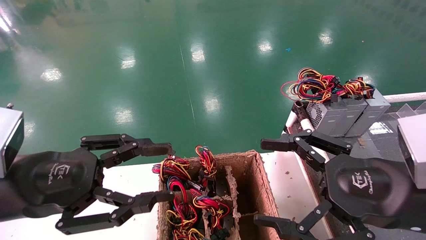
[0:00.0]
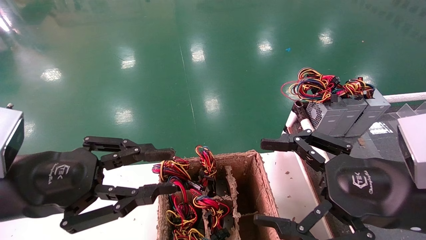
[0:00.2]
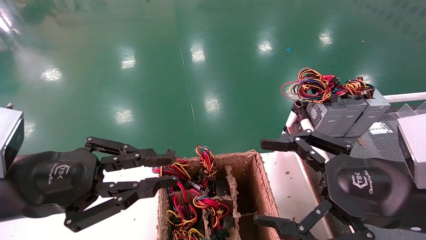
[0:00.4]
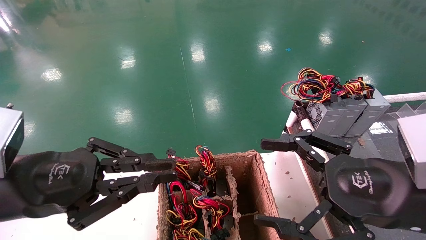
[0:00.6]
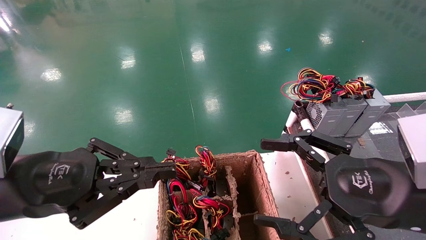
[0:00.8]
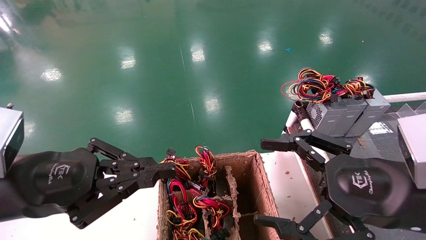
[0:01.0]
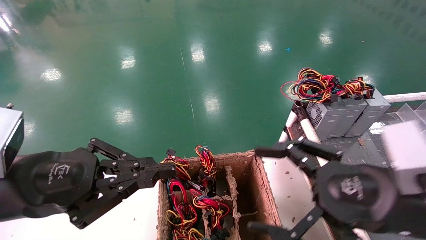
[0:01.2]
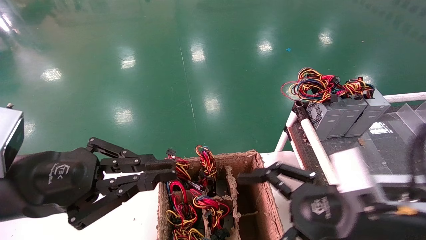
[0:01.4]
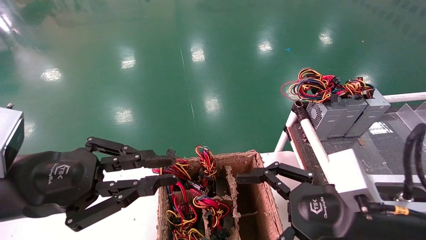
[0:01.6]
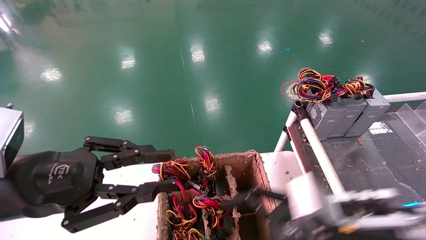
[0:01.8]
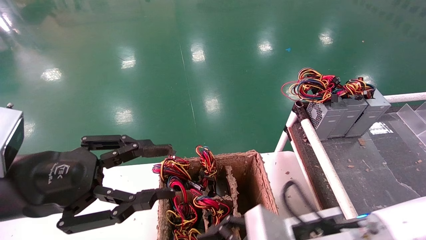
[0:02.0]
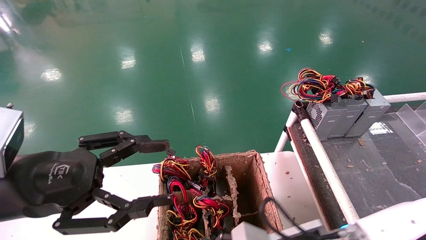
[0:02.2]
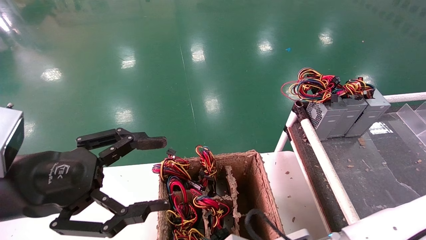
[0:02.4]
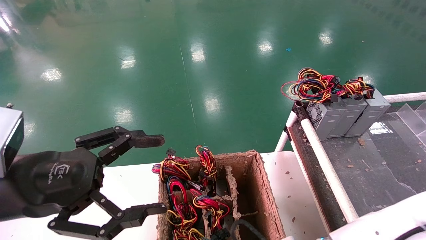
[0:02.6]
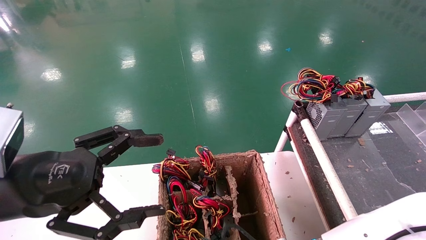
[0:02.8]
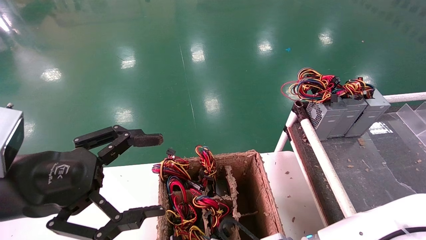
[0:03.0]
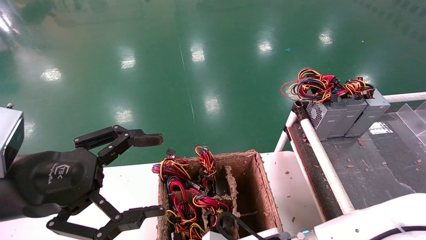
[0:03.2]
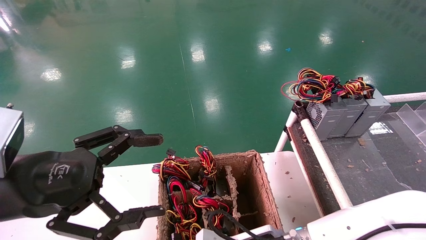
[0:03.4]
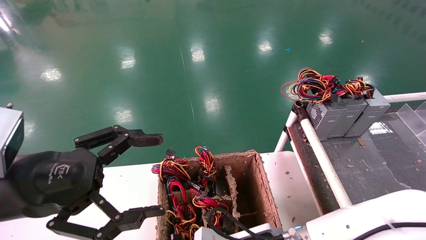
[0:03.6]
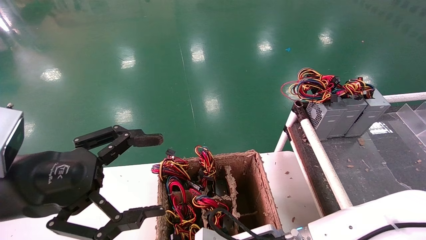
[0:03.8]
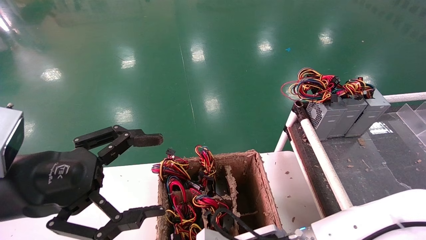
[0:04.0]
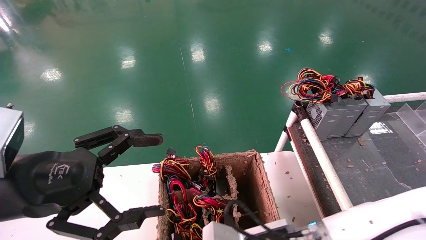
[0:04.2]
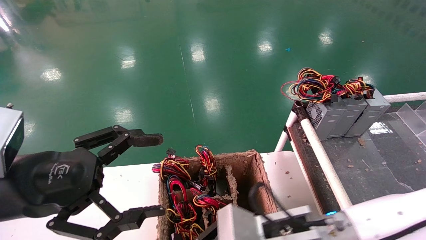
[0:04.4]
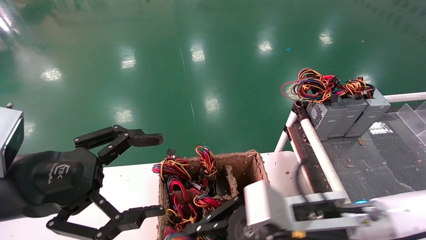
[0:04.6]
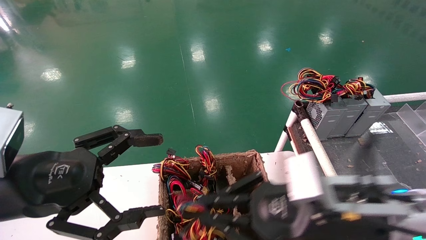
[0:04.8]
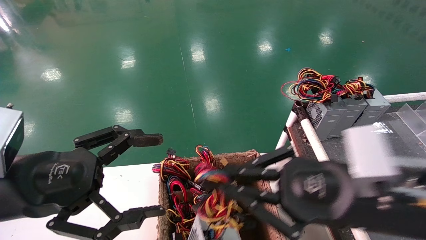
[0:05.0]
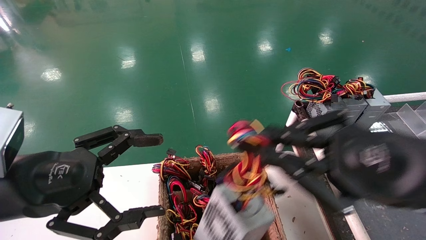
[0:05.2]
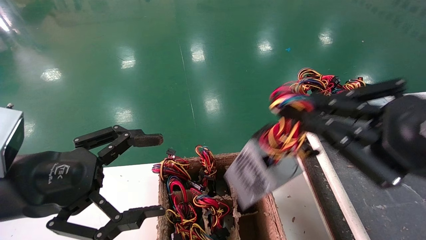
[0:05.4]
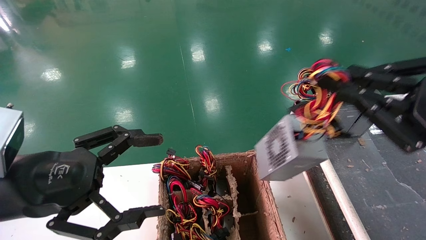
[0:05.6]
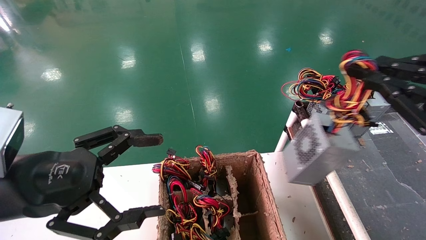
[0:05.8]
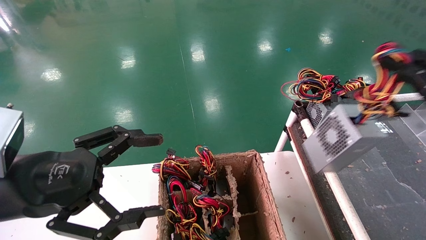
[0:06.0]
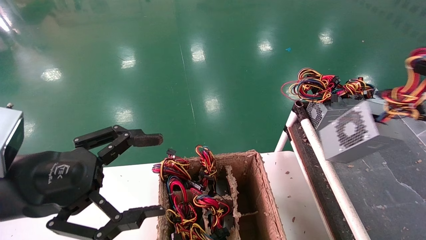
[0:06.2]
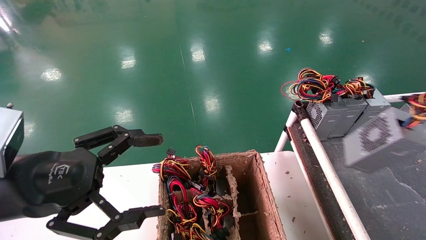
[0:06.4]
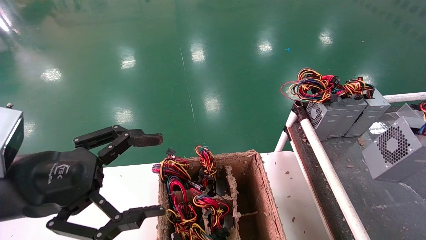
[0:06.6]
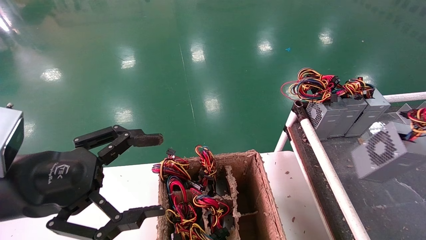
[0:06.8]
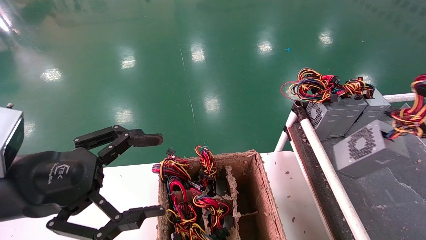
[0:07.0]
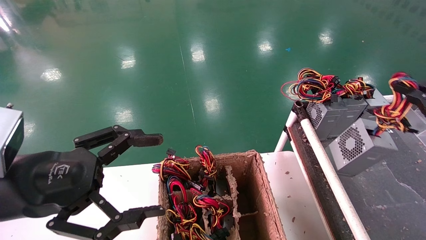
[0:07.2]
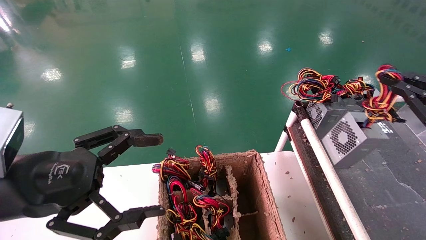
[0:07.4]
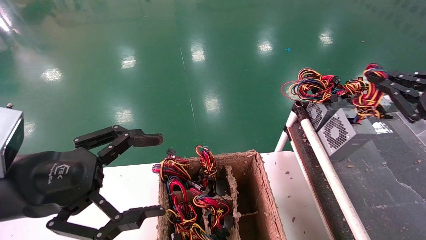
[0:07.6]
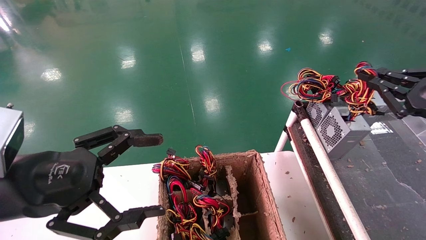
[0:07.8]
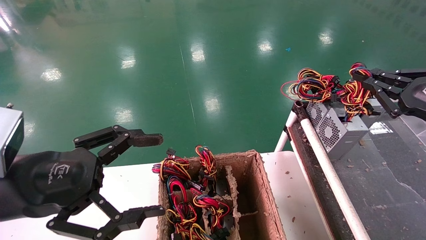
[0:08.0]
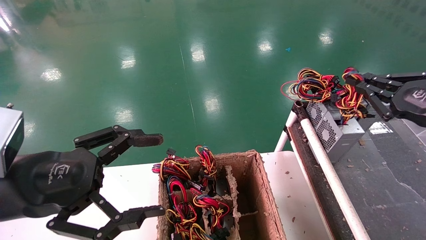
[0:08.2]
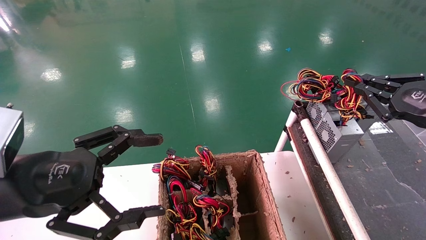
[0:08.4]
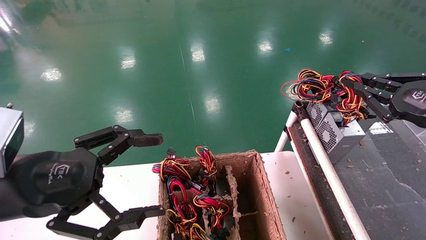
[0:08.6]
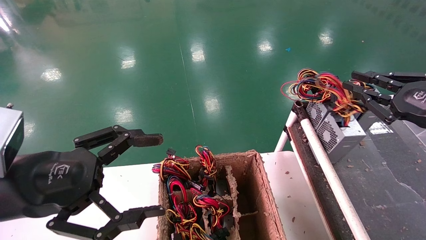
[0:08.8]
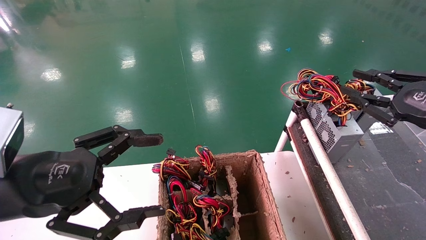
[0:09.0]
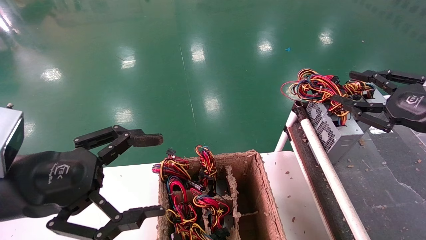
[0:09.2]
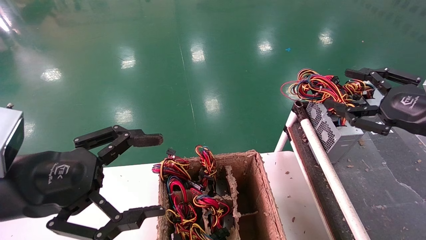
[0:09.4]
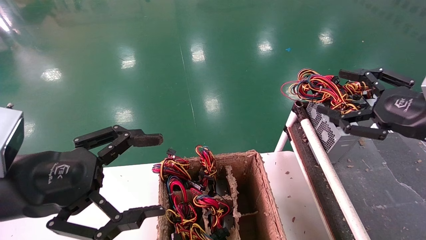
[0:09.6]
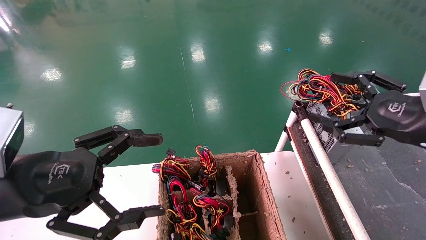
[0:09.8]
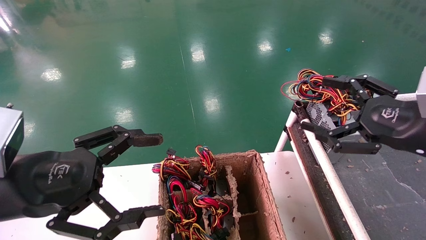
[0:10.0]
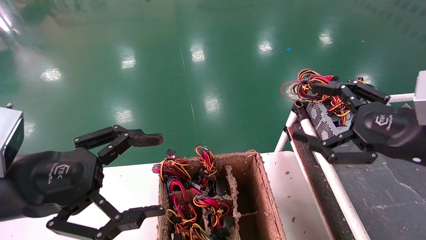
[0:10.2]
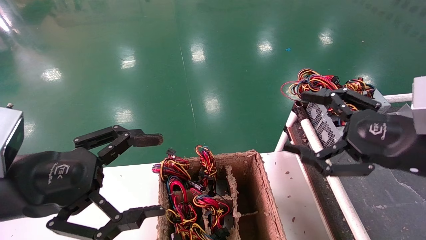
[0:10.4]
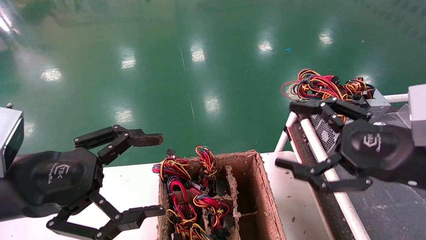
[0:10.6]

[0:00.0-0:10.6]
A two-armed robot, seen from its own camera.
Step, 0:01.4 to 0:03.8: Grab and lift the power supply from the large box.
Step, 0:04.0 to 0:09.2: Place the power supply on the operating table.
0:00.0 to 0:01.6: The left gripper closes its fingers. Meanwhile the right gripper goes roughly 5 cm downward.
0:01.6 to 0:03.0: The left gripper opens. The right gripper is displaced downward and to the left by some 15 cm.
0:03.0 to 0:04.6: The right gripper goes about 10 cm upward, and closes its fingers.
0:04.6 to 0:06.0: The right gripper heads to the right and upward, covering approximately 30 cm.
0:06.0 to 0:07.6: The right gripper moves forward, about 10 cm.
0:07.6 to 0:09.0: The grippers make only small movements.
0:09.0 to 0:10.6: The right gripper shifts roughly 15 cm to the left and backward, and opens up.

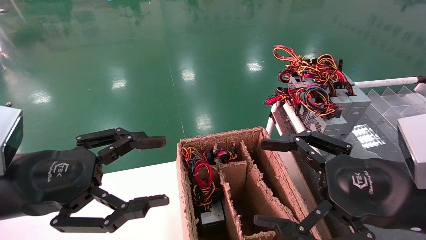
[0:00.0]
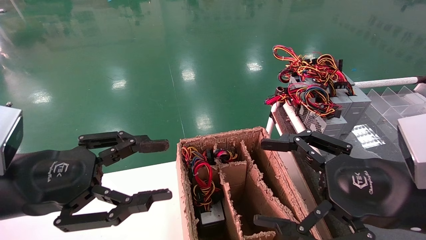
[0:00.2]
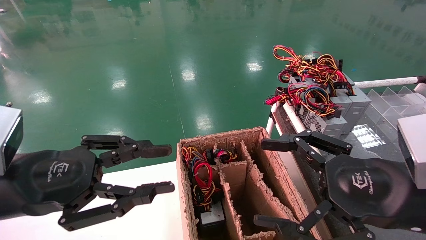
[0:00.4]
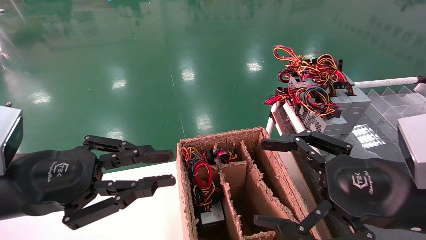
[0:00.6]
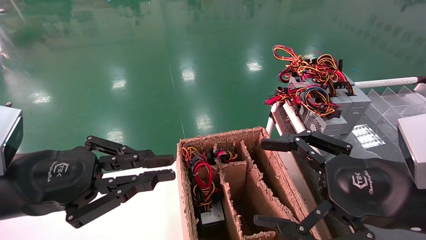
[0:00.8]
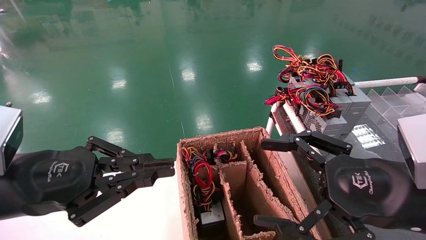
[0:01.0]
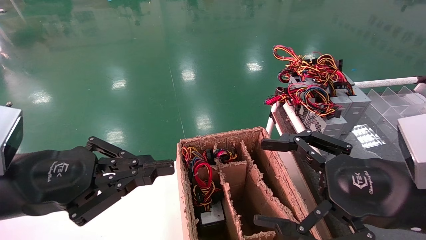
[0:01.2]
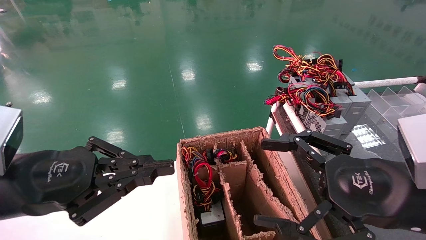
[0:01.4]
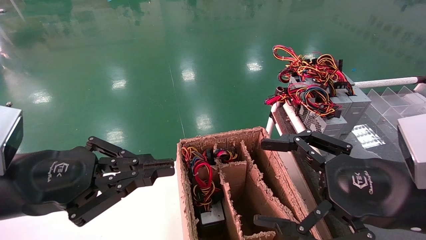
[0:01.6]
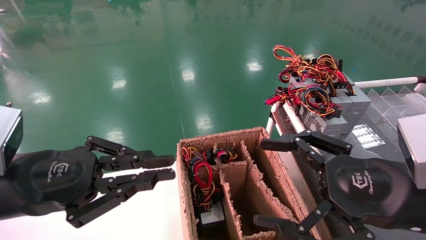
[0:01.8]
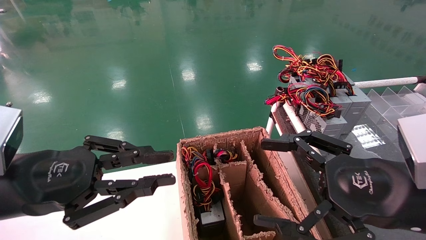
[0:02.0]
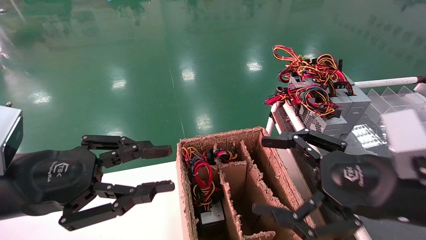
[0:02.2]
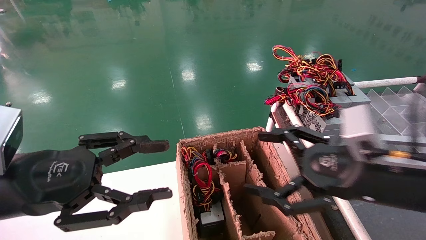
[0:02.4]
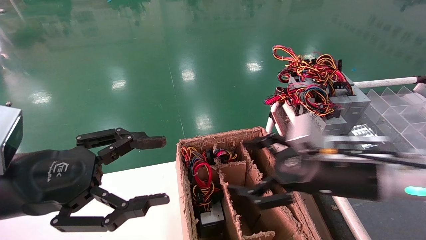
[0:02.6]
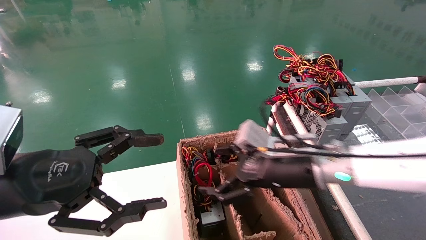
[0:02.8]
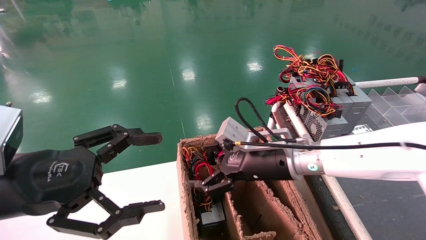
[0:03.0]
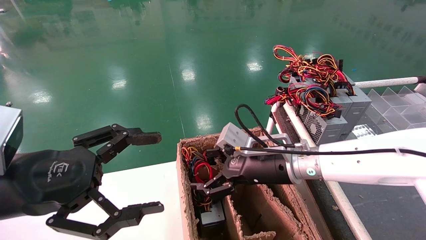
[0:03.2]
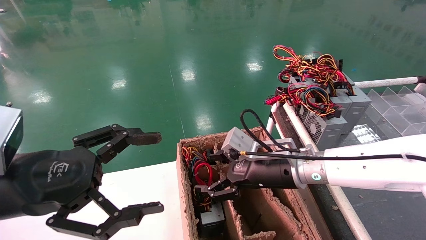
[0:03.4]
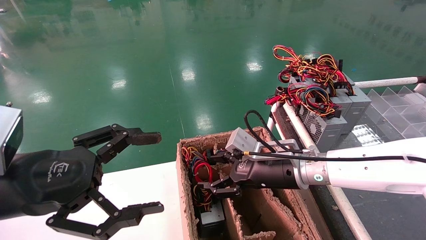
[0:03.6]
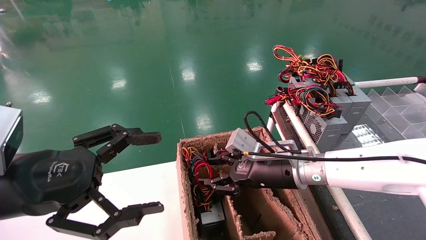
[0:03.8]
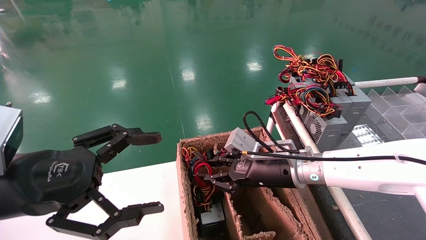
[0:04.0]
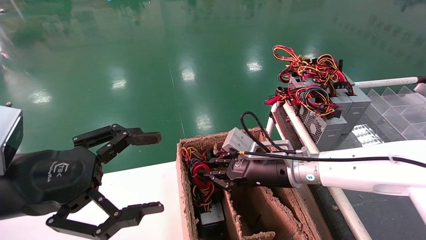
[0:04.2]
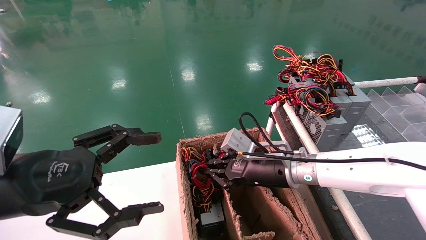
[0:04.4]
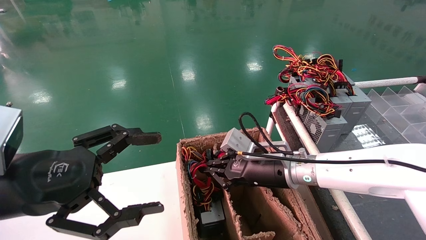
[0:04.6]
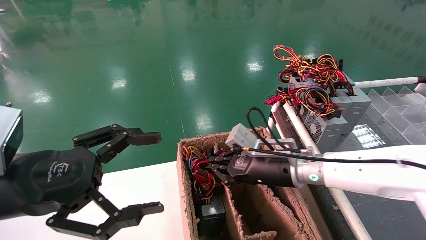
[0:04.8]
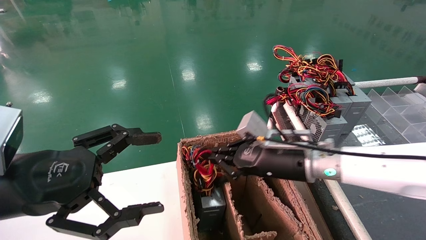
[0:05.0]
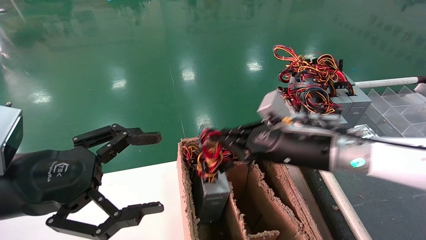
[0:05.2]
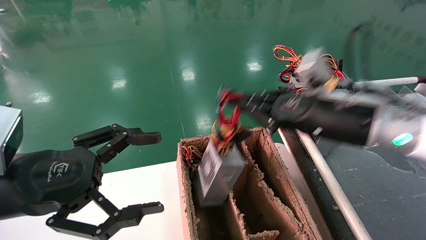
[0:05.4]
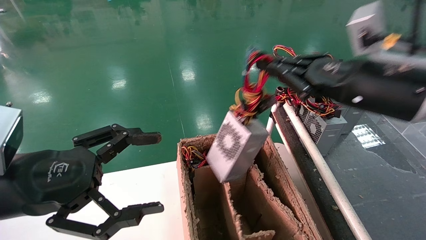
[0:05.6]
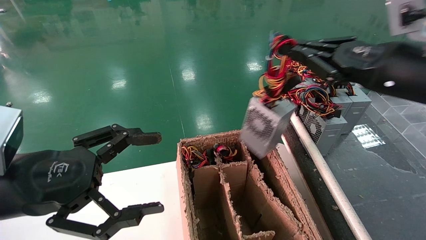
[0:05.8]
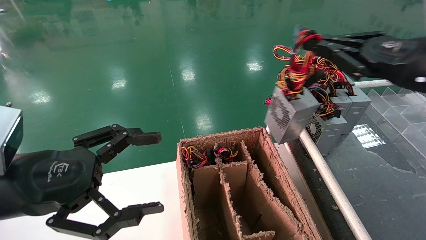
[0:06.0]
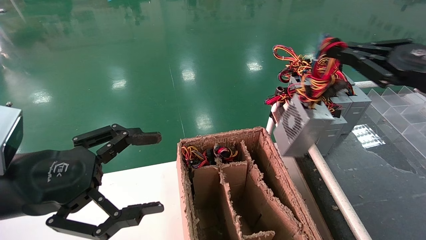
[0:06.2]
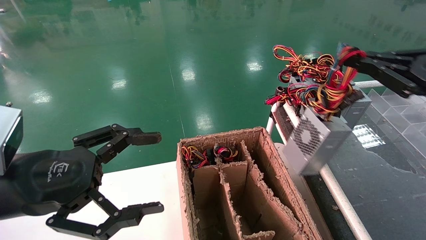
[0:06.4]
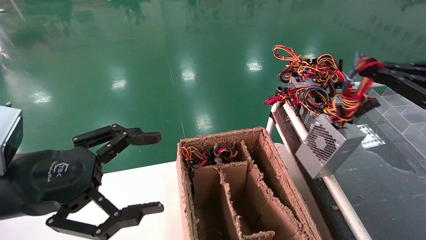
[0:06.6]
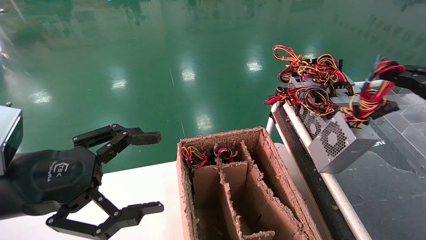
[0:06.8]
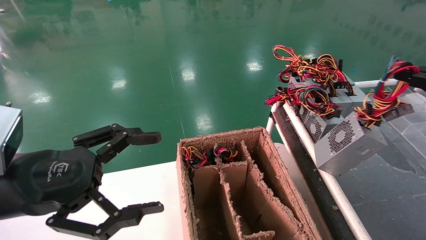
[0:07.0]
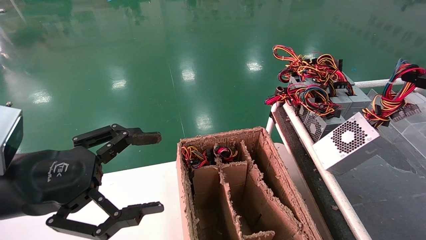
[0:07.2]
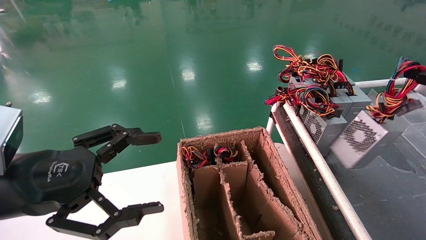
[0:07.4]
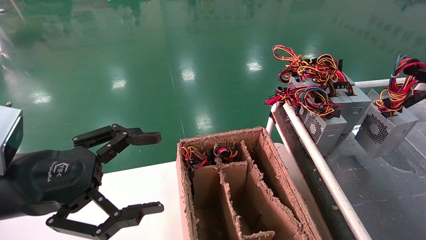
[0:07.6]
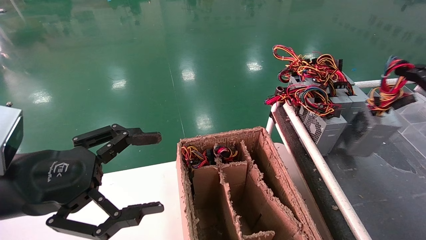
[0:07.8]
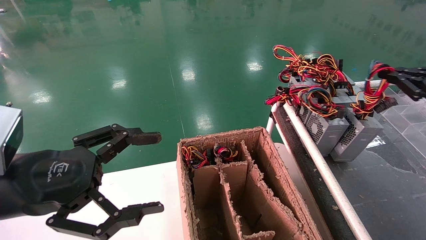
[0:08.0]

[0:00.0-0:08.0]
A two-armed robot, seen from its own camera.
Step, 0:01.2 to 0:04.6: Grab and lift the power supply from the large box.
0:00.0 to 0:01.6: The left gripper closes up.
0:01.6 to 0:03.2: The left gripper opens up, while the right gripper heads forward and to the left, covering approximately 20 cm.
0:03.2 to 0:04.8: The right gripper closes.
0:04.8 to 0:06.4: The right gripper heads to the right, upward and backward, covering roughly 30 cm.
0:06.4 to 0:08.0: The right gripper travels to the right and forward by about 10 cm.
